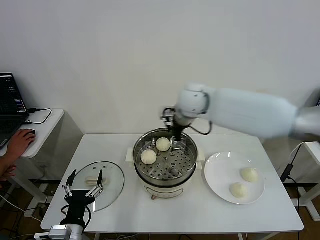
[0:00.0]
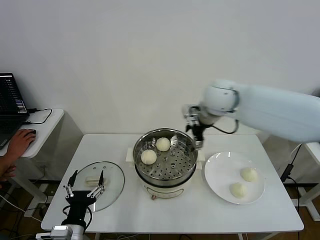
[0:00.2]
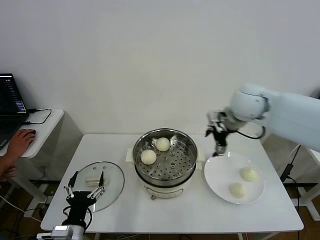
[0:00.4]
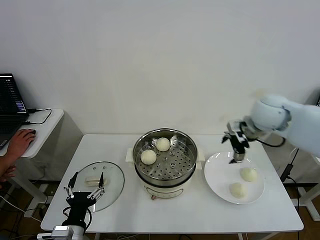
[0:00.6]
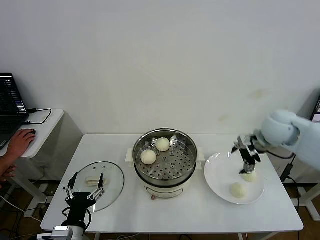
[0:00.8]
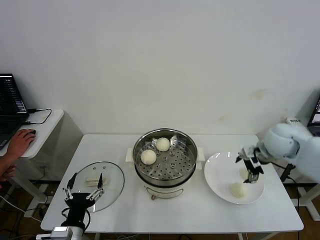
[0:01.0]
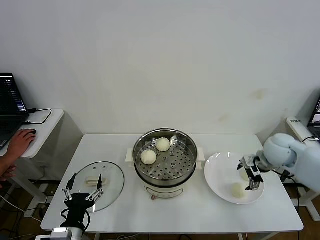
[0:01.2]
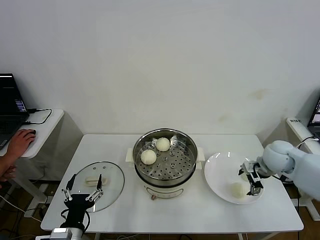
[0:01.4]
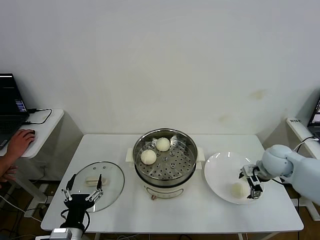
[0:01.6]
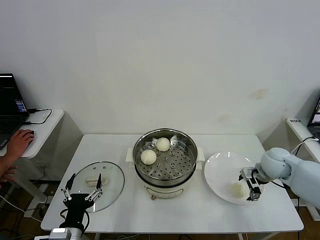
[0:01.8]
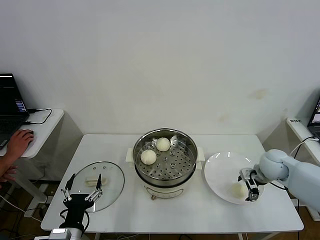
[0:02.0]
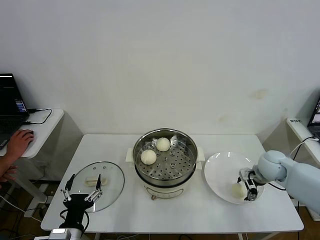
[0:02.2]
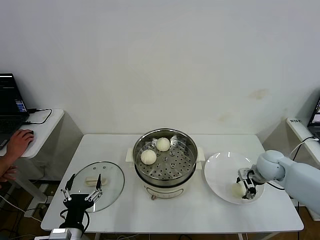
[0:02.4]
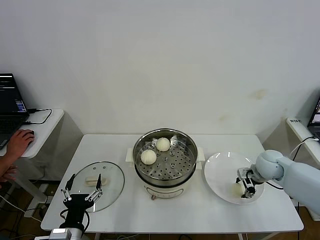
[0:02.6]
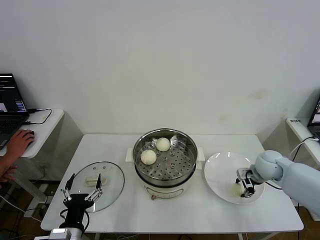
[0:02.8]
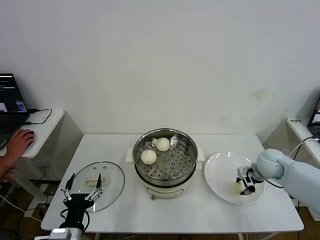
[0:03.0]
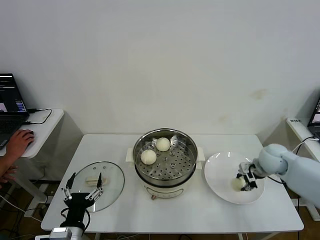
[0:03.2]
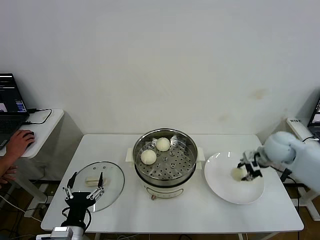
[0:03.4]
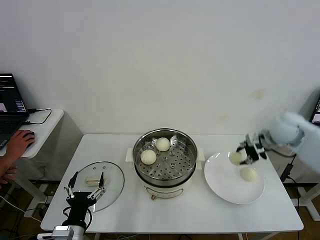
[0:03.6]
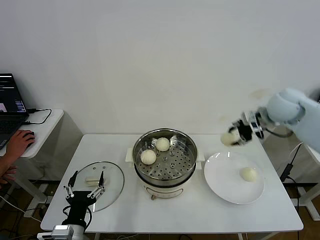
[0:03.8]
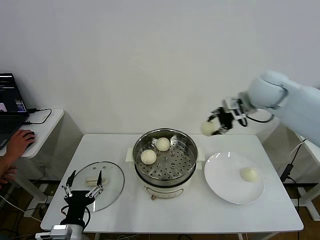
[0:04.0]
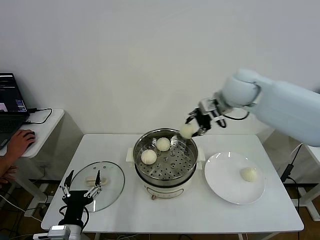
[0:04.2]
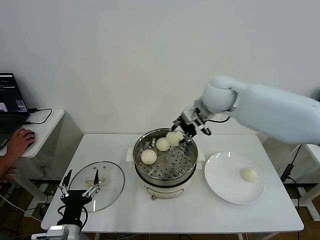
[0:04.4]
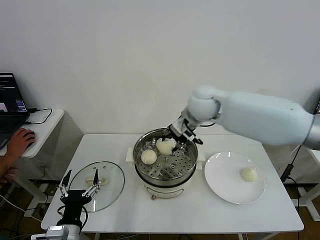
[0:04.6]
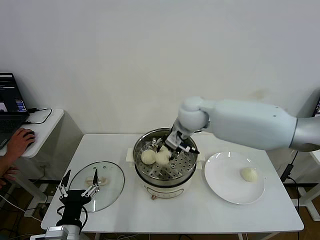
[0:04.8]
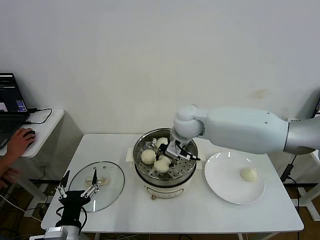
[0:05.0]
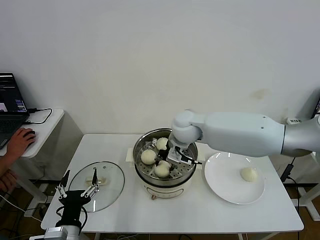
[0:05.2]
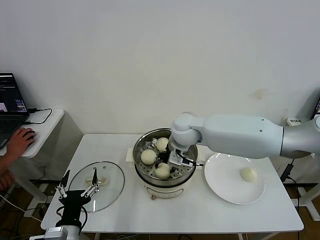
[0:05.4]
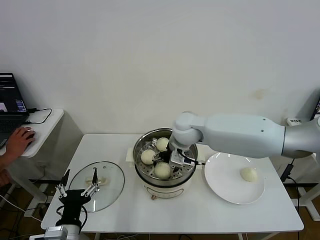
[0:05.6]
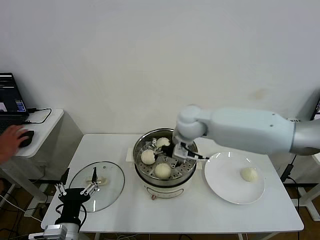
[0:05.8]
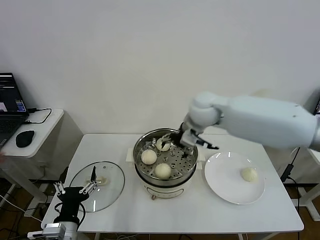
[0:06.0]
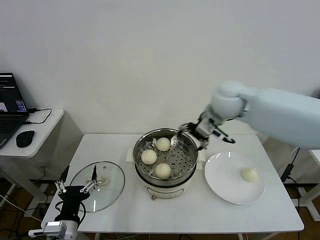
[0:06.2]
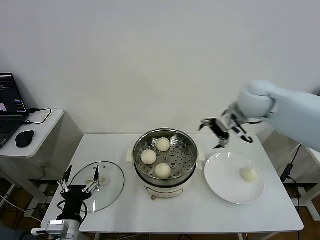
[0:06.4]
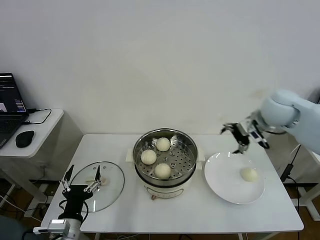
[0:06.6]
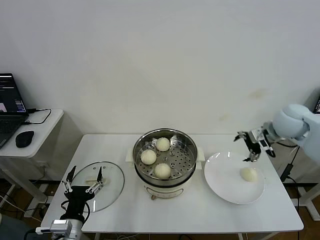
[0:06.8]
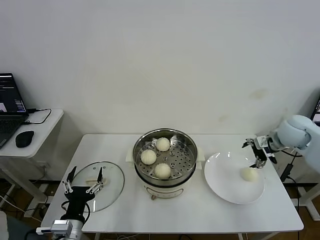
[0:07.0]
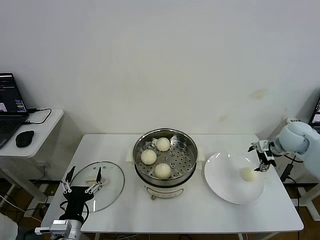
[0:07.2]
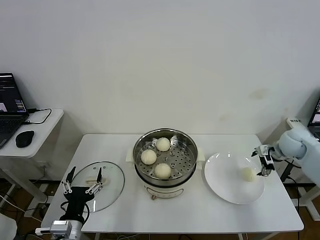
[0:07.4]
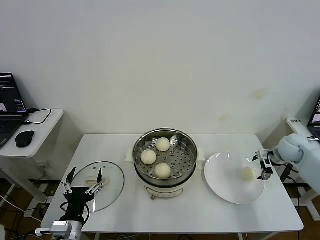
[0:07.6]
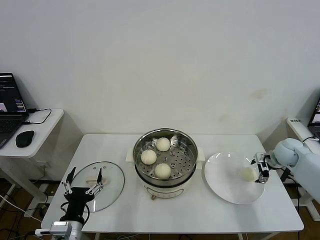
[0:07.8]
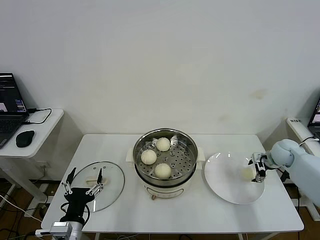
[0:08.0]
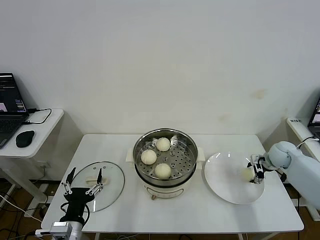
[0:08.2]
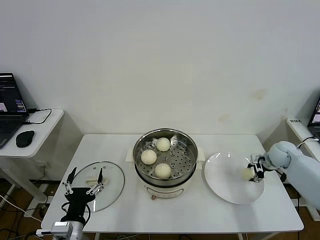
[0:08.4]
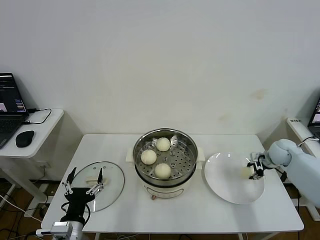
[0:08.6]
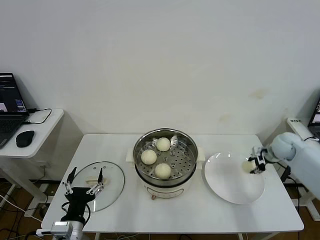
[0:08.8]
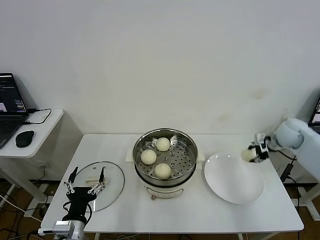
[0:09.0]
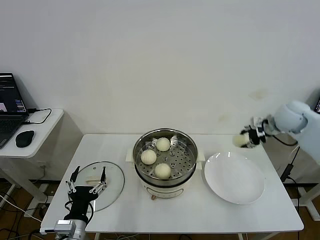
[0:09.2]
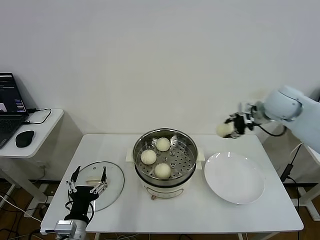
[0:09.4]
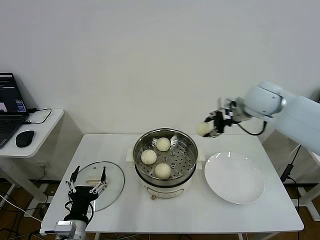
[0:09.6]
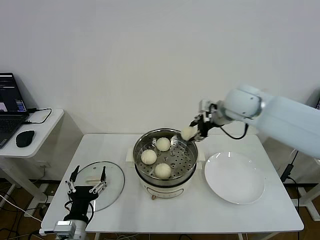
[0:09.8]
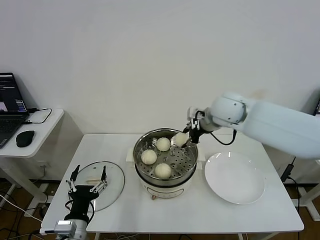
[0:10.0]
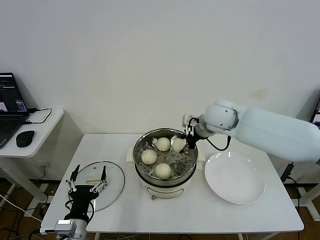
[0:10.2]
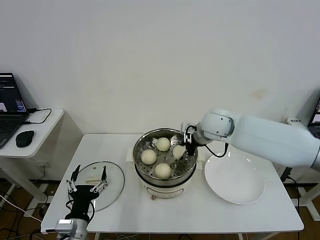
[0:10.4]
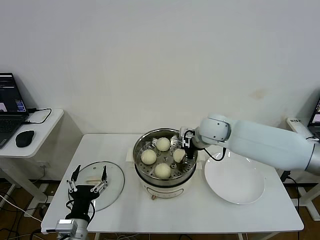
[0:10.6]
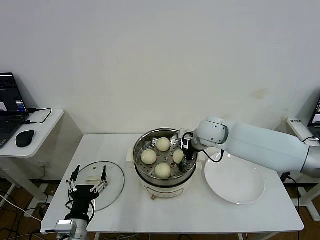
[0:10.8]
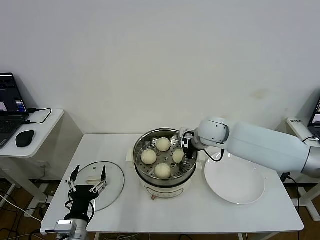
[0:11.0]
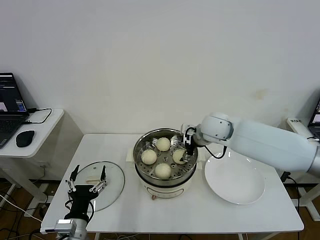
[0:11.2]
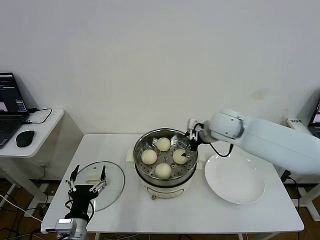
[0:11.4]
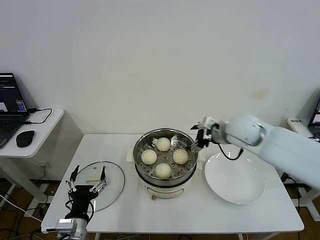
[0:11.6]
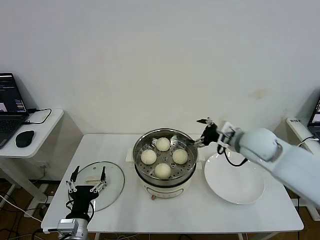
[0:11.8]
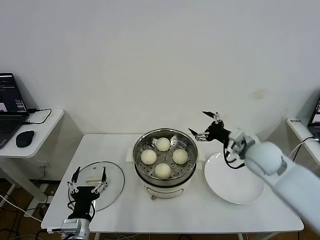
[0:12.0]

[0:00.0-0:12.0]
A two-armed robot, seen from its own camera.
Step, 0:00.0 to 0:02.8: Grasp the baozi in the plate with right gripper.
Step, 0:03.0 to 0:05.6: Place the baozi on the steamer with right gripper.
Step, 0:05.8 to 0:08.2: Grasp the baozi in the plate with right gripper.
Step, 0:08.4 to 0:11.2: Place the baozi on the steamer with right gripper.
0:00.0 to 0:01.6: The right gripper travels to the right and downward by approximately 30 cm.
0:01.6 to 0:03.0: The right gripper closes up.
0:03.0 to 0:04.4: The right gripper is displaced to the left and upward by some 30 cm.
0:04.4 to 0:06.0: The right gripper goes downward and returns, about 10 cm each way, and opens.
0:06.0 to 0:07.6: The right gripper moves to the right and downward, approximately 40 cm.
0:07.6 to 0:09.0: The right gripper is displaced upward by roughly 5 cm, and closes its fingers.
0:09.0 to 0:10.4: The right gripper shifts about 25 cm to the left.
0:10.4 to 0:12.0: The right gripper shifts about 15 cm to the right and backward, and opens its fingers.

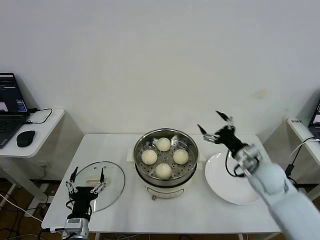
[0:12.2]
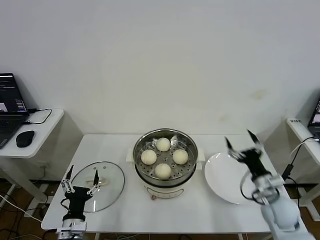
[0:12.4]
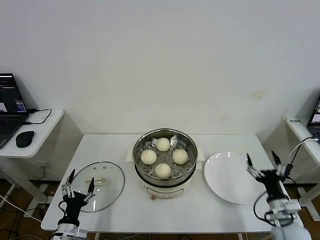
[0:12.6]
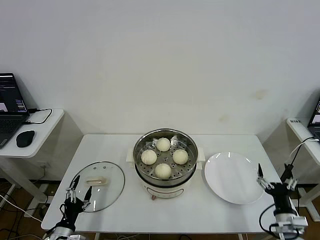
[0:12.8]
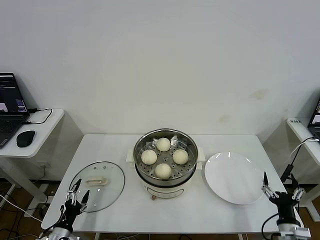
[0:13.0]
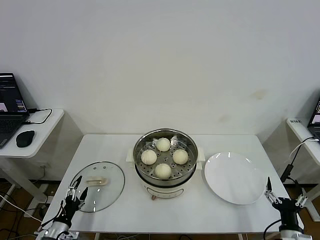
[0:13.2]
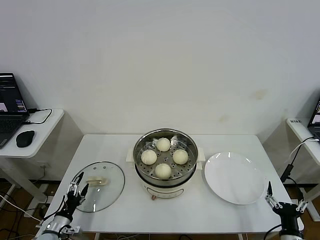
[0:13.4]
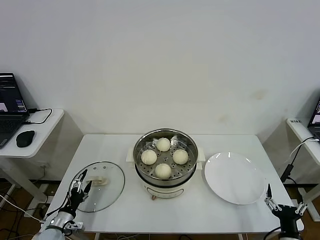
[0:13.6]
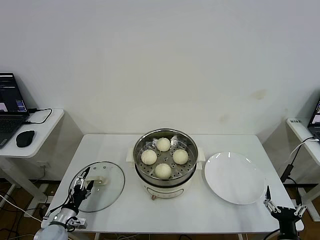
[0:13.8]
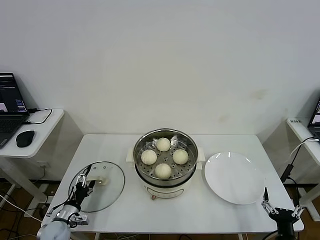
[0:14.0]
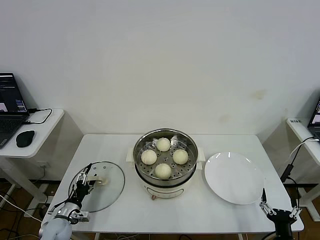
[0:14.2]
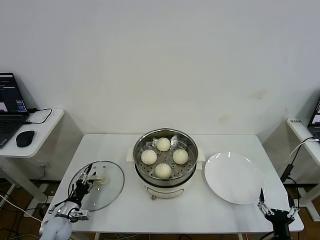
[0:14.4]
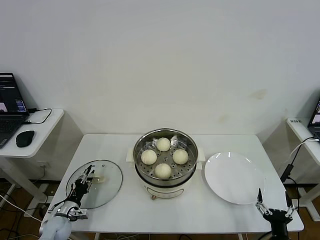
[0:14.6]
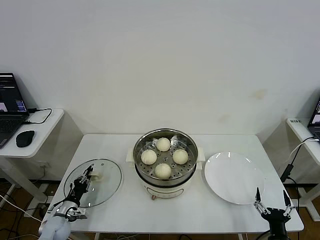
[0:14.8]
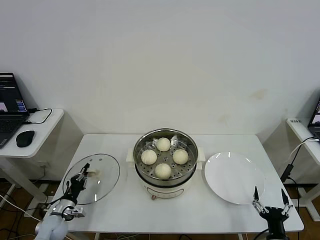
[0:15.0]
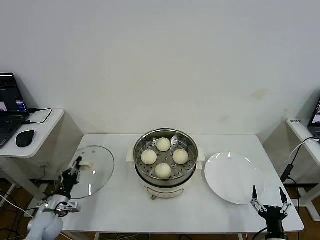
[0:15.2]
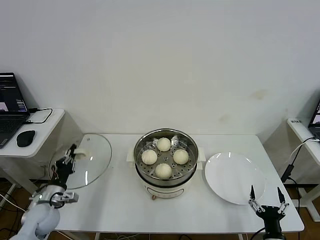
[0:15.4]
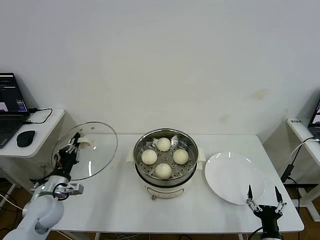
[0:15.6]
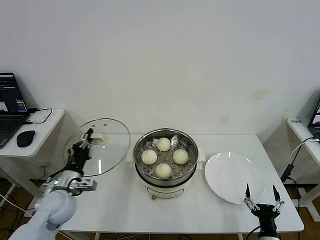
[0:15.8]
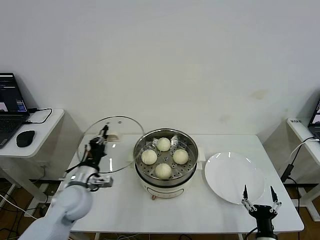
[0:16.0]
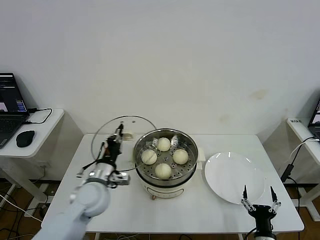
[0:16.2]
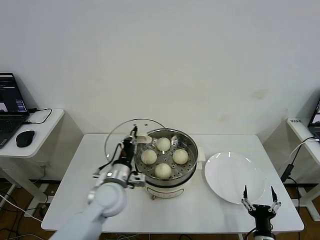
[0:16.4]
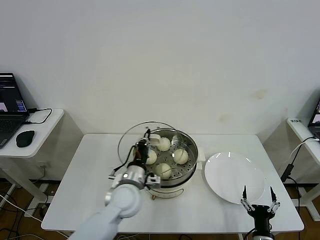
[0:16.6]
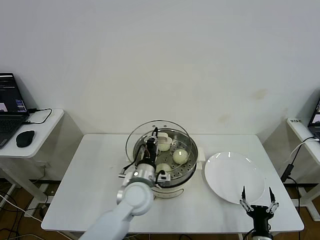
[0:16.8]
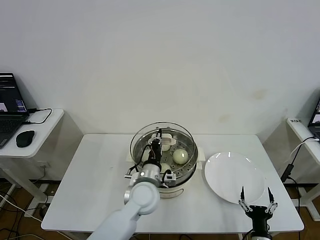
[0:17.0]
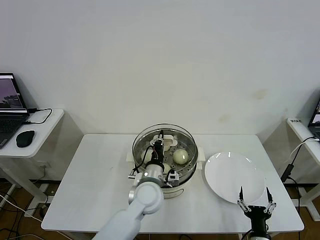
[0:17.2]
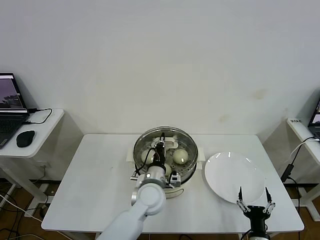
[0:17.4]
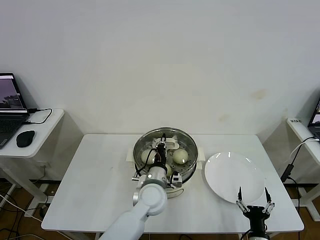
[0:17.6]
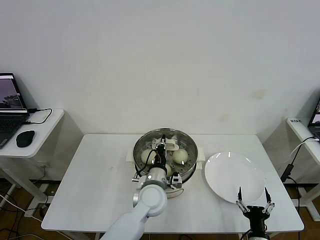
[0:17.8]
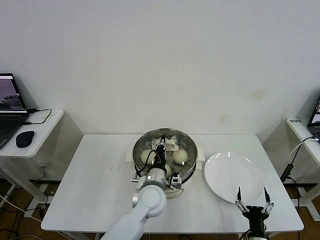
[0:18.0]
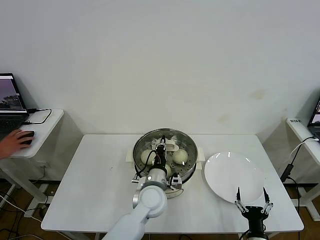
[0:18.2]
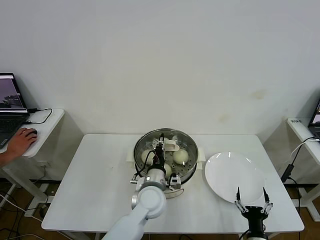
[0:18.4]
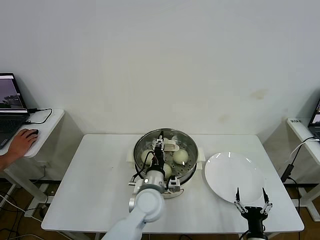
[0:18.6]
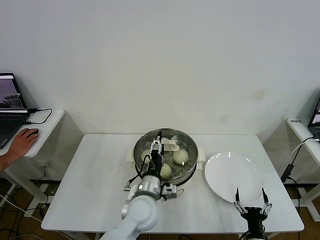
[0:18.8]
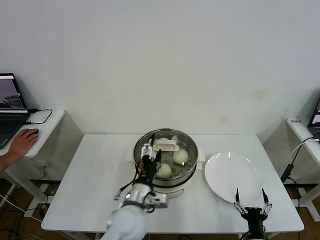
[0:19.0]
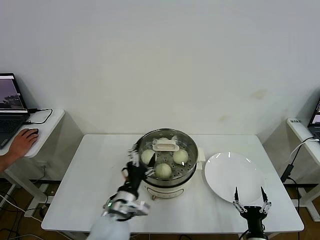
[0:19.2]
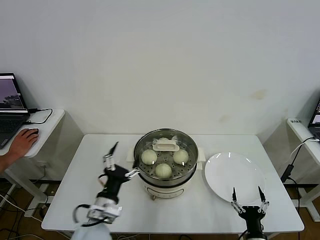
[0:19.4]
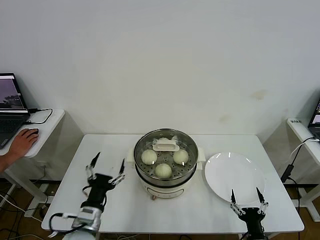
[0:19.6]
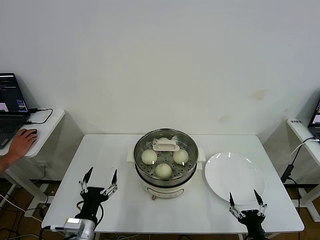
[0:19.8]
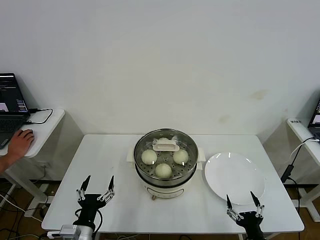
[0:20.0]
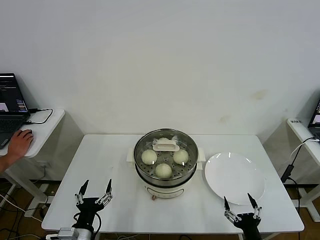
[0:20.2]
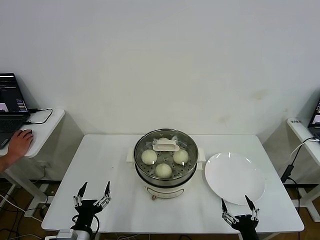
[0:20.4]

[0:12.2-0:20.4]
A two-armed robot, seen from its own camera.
Step, 0:12.2 to 0:15.0: Grasp the pot lid with left gripper.
Step, 0:15.2 to 0:18.8: Place the pot lid on the steamer with left gripper.
0:12.2 to 0:13.8: The left gripper travels to the left, downward and forward by roughly 20 cm; the right gripper moves backward and downward, some 30 cm.
0:13.8 to 0:15.4: The left gripper moves upward, some 10 cm, and closes up.
0:15.4 to 0:17.2: The left gripper goes roughly 35 cm to the right.
0:17.2 to 0:18.8: The left gripper opens up.
0:18.8 to 0:20.4: The left gripper goes some 25 cm to the left and backward. Meanwhile the right gripper moves upward, roughly 5 cm.
